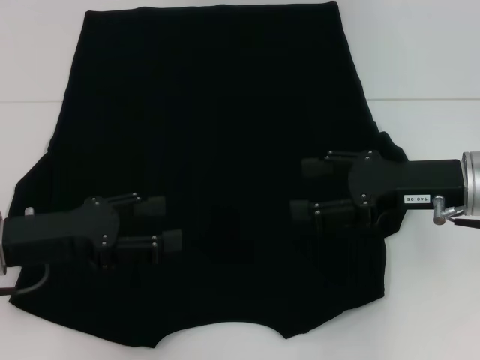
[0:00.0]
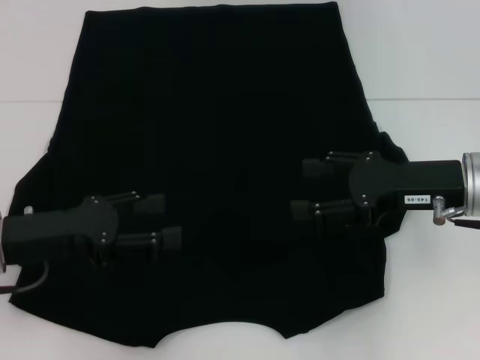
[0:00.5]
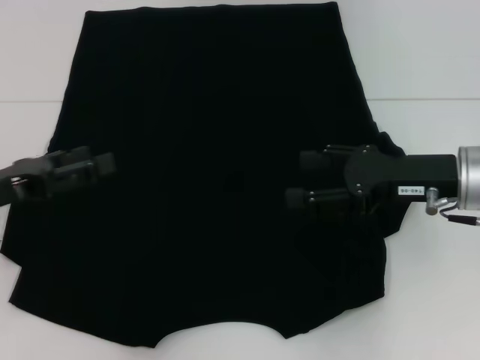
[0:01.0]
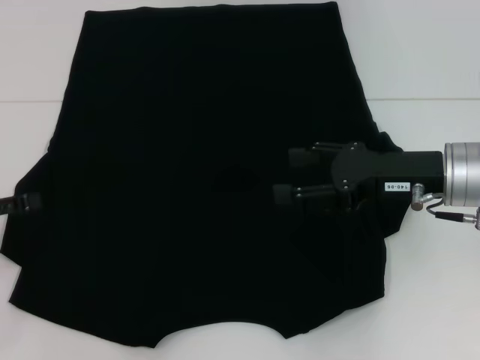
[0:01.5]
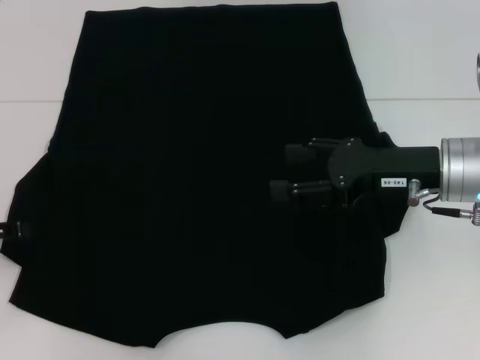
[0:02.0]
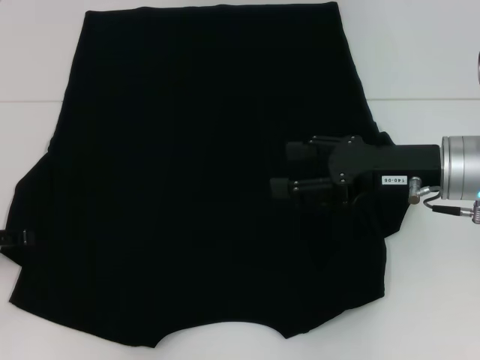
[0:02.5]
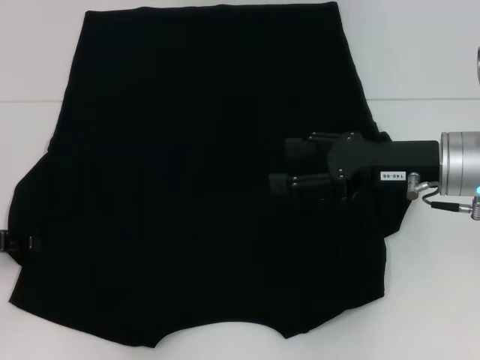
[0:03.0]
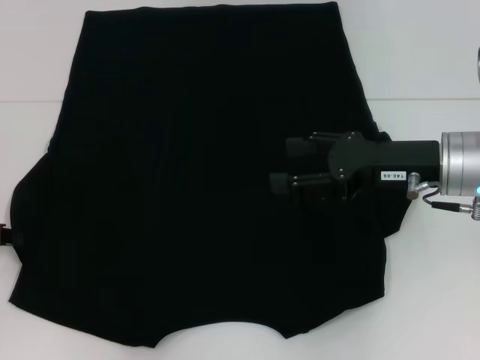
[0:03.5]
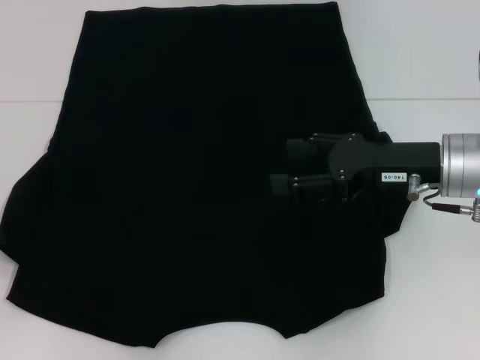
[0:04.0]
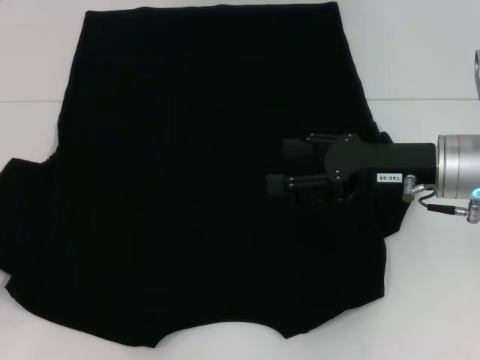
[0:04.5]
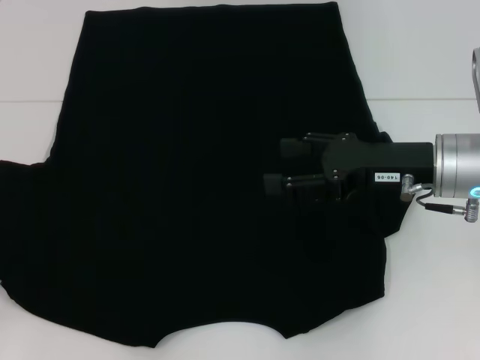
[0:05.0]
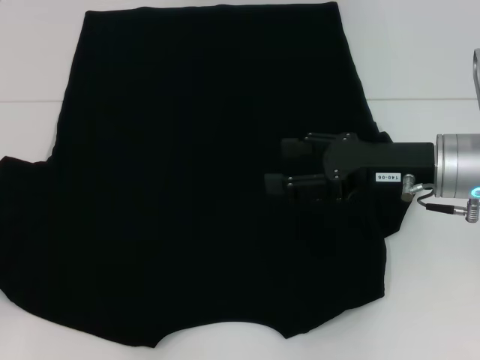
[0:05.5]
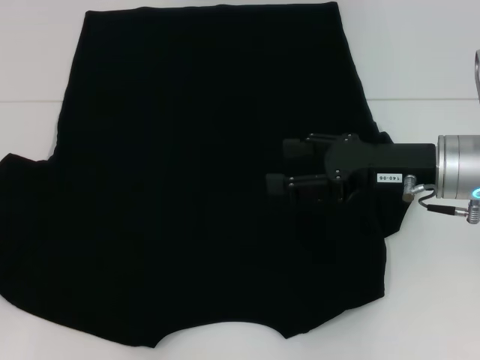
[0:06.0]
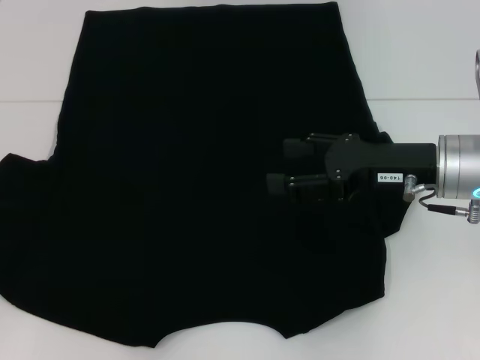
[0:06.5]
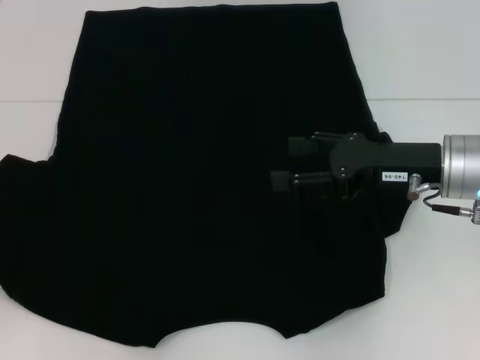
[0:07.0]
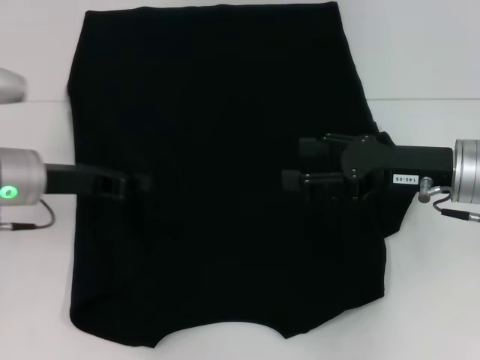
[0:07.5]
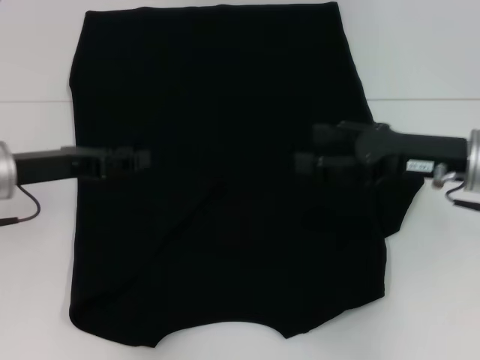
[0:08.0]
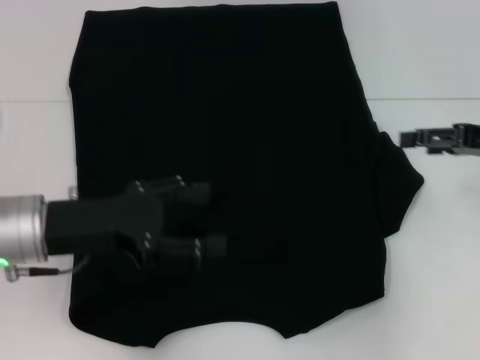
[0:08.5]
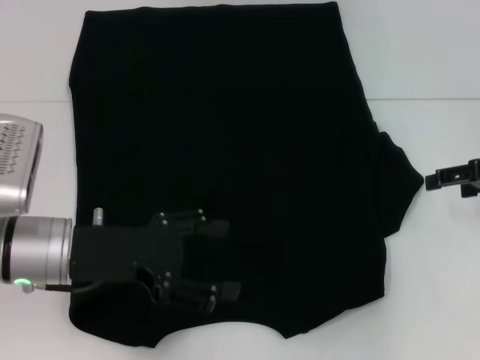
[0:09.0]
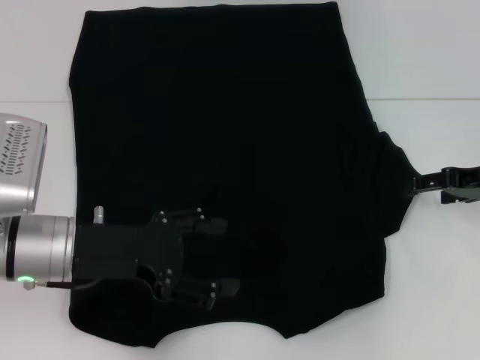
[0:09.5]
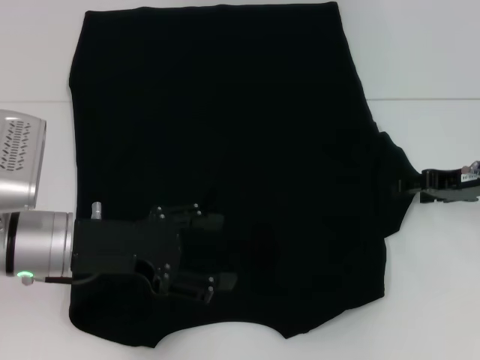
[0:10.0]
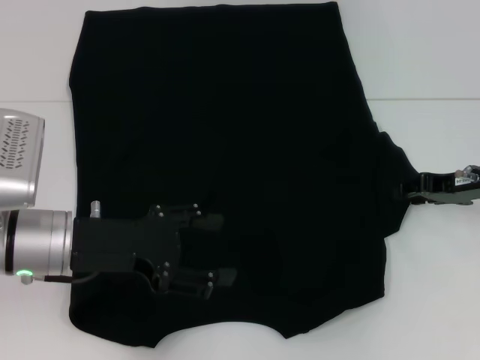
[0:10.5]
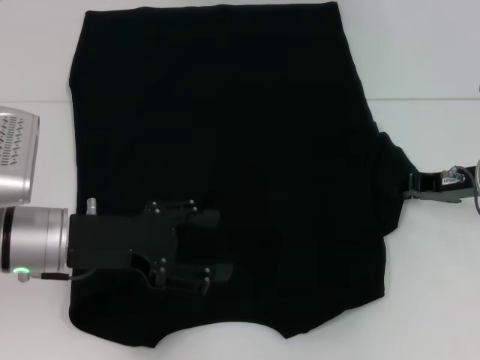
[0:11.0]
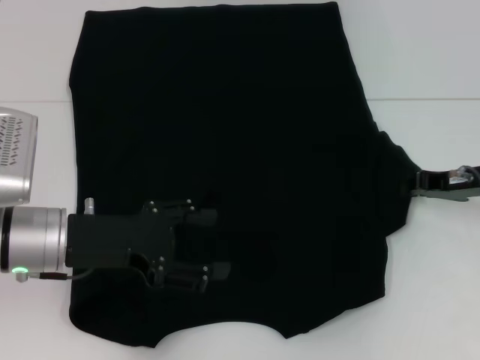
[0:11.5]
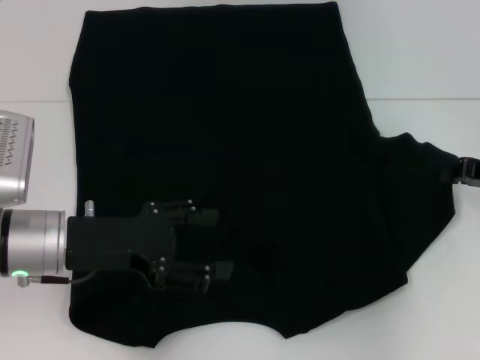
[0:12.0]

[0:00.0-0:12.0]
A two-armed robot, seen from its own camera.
Step, 0:00.0 to 0:08.0: Fold the bottom left sleeve with your left hand.
0:00.0 to 0:02.0: The left gripper moves to the left, some 10 cm.
0:04.0 to 0:06.0: The grippers move only a little.
0:06.0 to 0:08.0: The left gripper goes roughly 15 cm to the right and forward.
0:08.0 to 0:10.0: Both grippers move to the right, approximately 5 cm. The left gripper opens its fingers.
0:10.0 to 0:12.0: The right gripper closes.

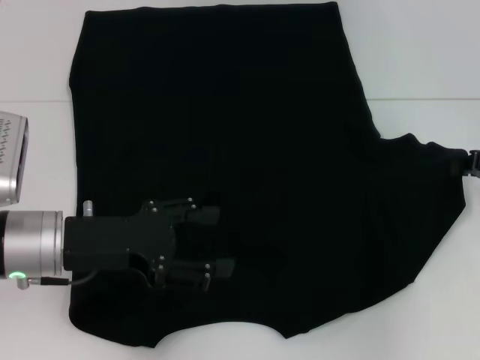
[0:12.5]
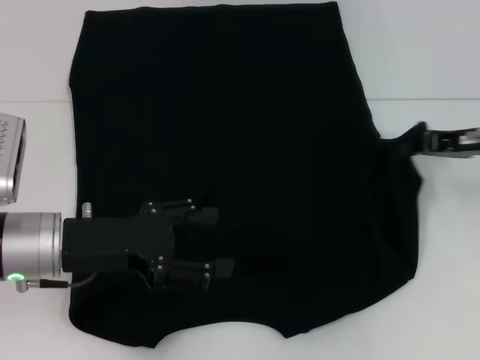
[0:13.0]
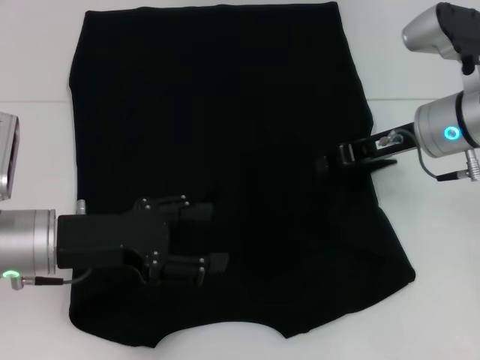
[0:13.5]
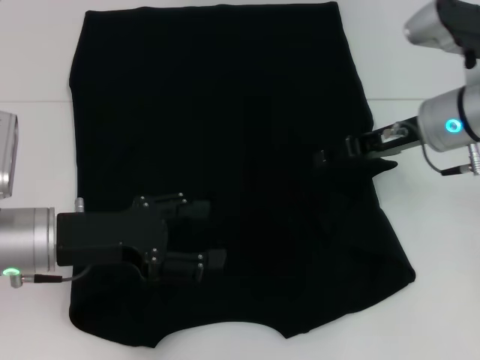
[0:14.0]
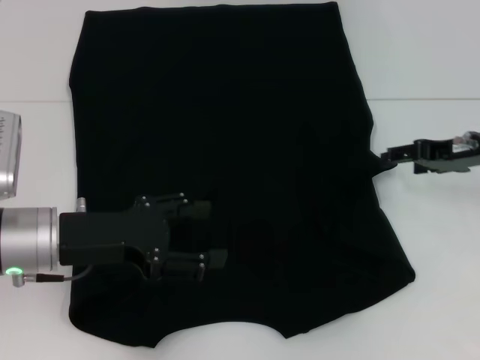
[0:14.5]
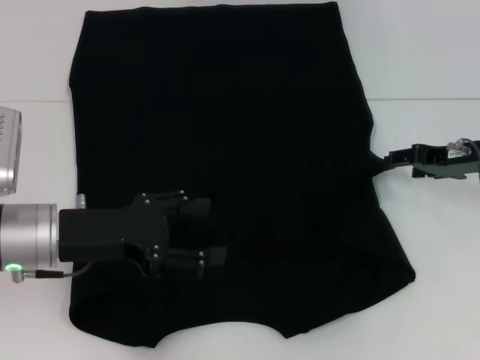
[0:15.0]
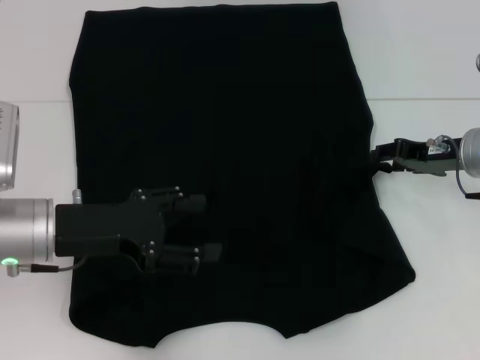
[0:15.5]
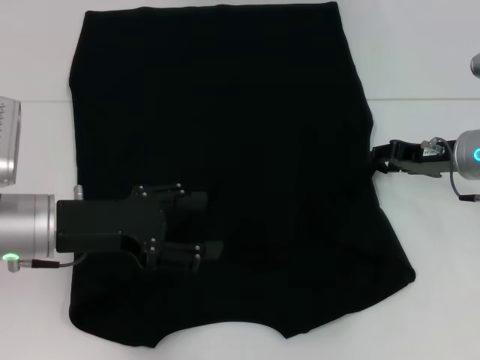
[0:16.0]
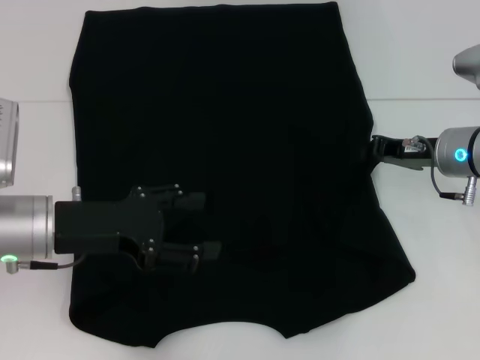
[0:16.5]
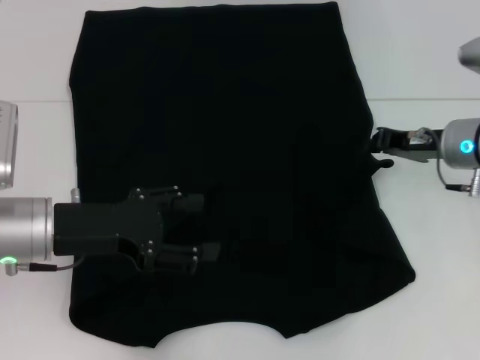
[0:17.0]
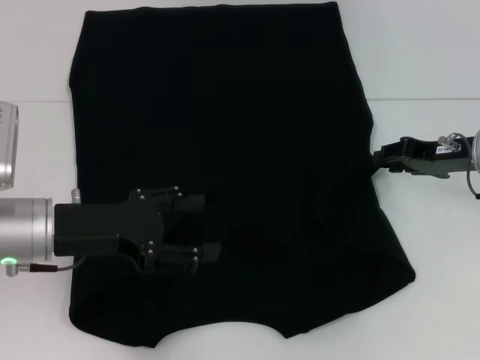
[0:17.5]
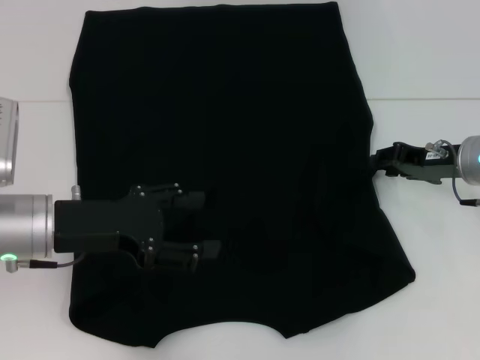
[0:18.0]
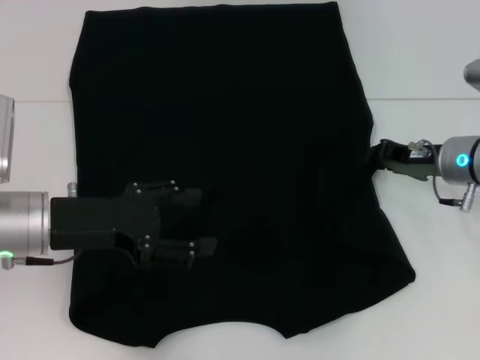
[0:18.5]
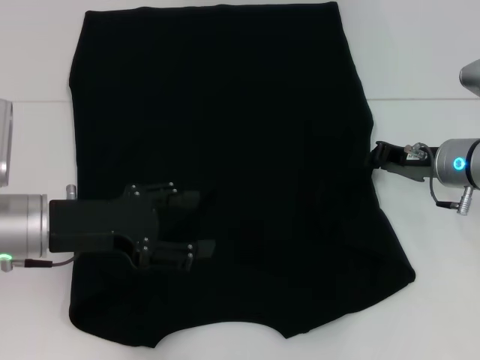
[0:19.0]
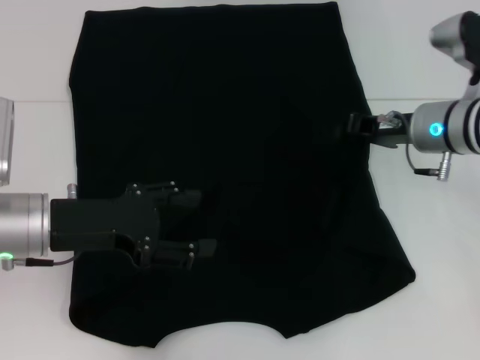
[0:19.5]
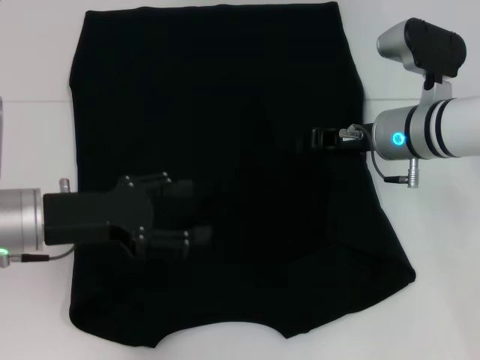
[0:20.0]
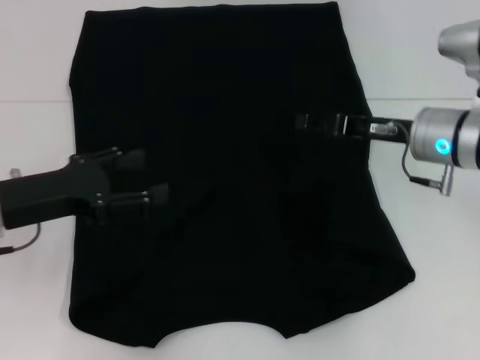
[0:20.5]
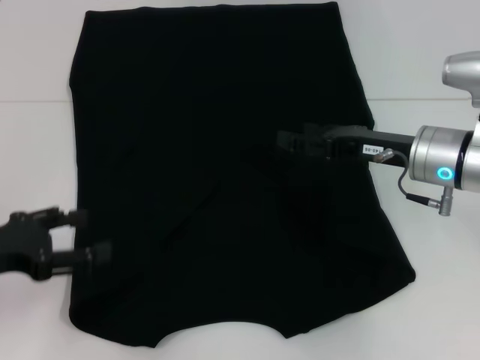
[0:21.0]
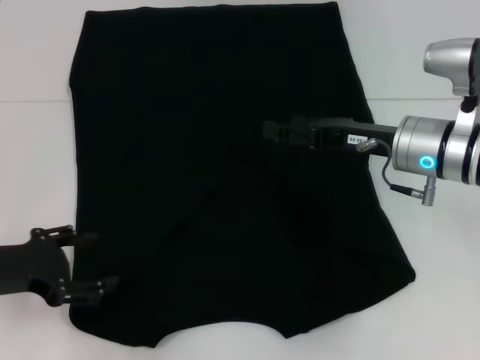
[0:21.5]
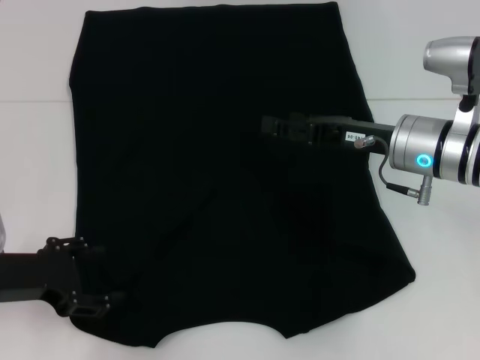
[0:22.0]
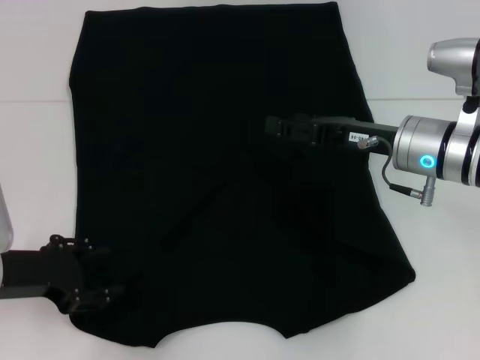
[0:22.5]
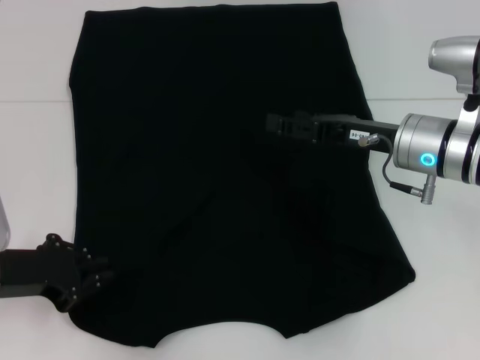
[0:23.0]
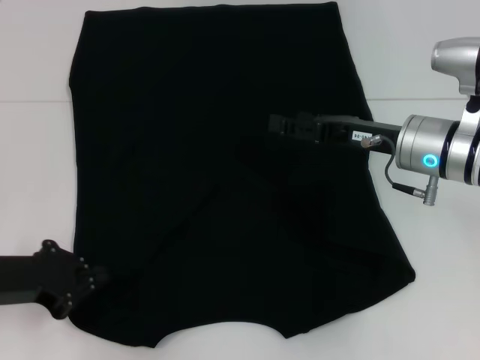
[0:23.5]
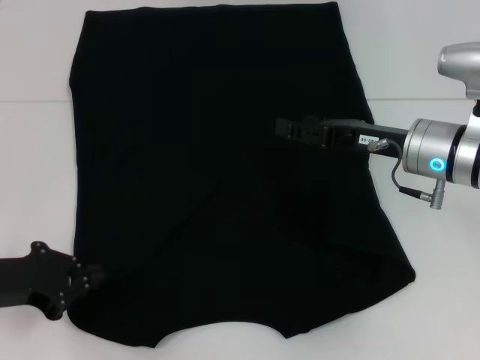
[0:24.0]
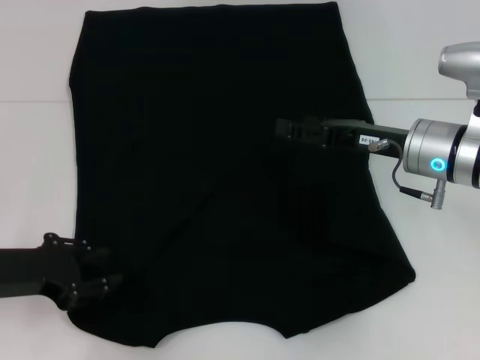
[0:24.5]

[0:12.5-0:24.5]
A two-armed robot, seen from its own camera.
Step, 0:12.5 to 0:20.5: Fold the bottom right sleeve with your right hand.
0:12.5 to 0:14.5: The right gripper heads to the left, covering approximately 5 cm, and opens its fingers.
0:14.5 to 0:16.5: The right gripper moves about 5 cm, and closes its fingers.
0:16.5 to 0:18.5: There are only small adjustments of the grippers.
0:18.5 to 0:20.5: The right gripper closes, then opens again.
0:22.5 to 0:24.5: The left gripper closes.

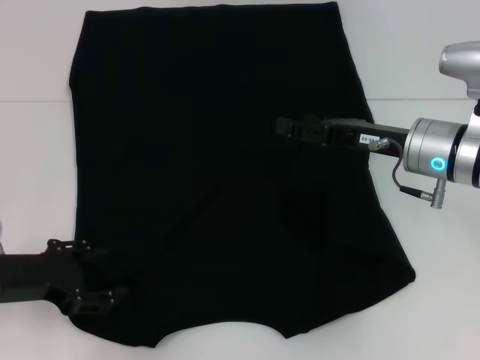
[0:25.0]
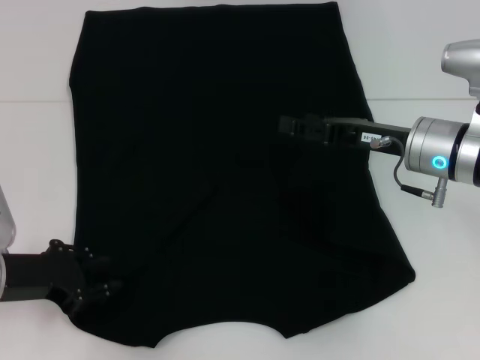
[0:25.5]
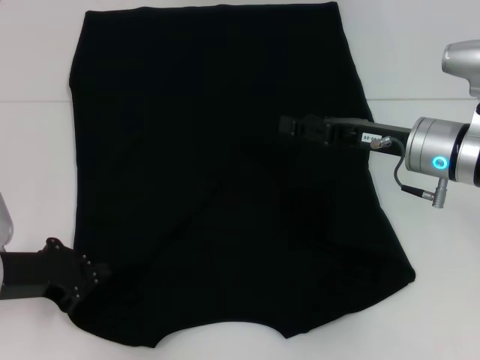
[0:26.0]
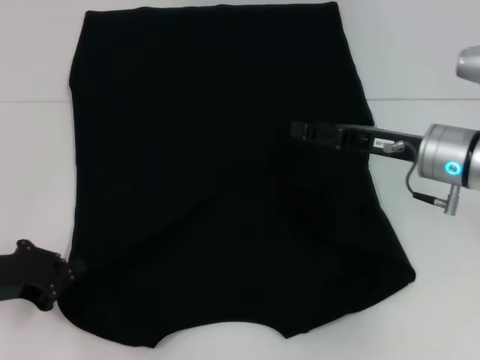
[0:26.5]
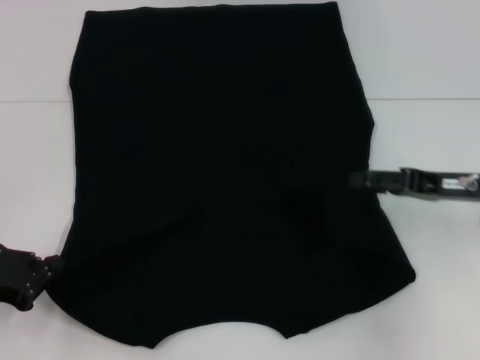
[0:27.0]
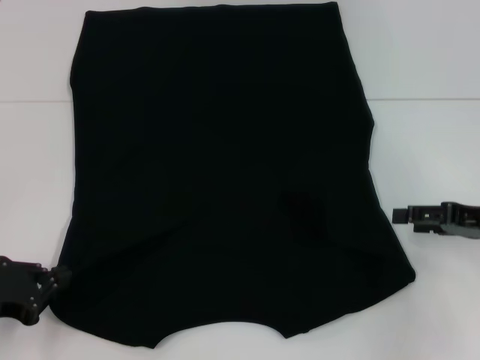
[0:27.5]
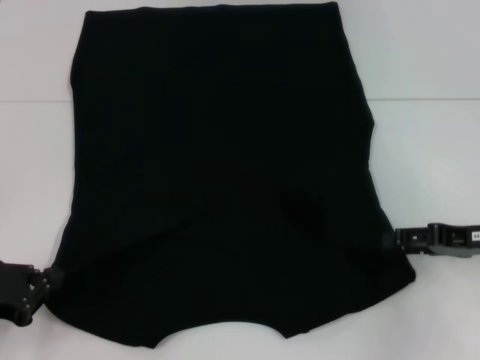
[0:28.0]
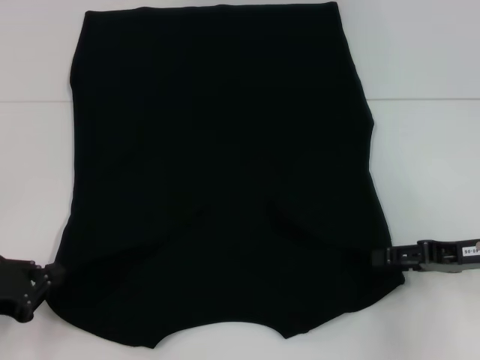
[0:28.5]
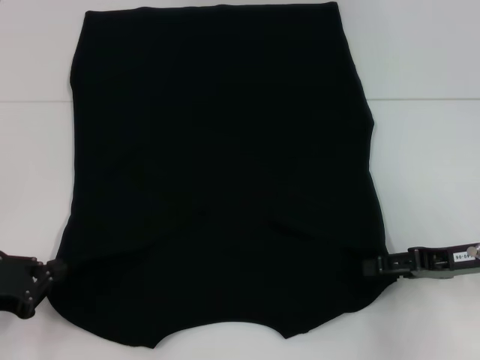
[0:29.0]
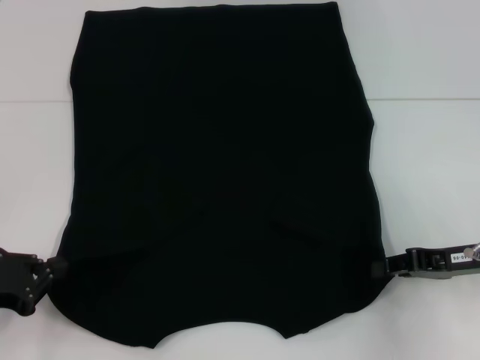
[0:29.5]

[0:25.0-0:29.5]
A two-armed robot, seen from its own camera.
0:25.0 to 0:27.0: The right gripper shifts some 10 cm to the right; the left gripper moves approximately 5 cm, and closes its fingers.
0:27.0 to 0:29.5: The right gripper ends up roughly 5 cm from where it was, and closes up.
